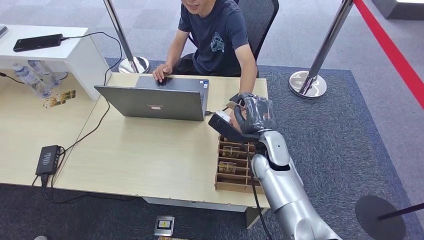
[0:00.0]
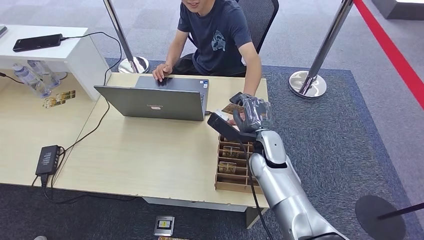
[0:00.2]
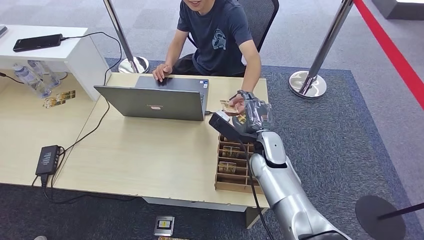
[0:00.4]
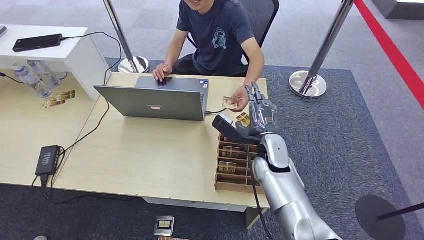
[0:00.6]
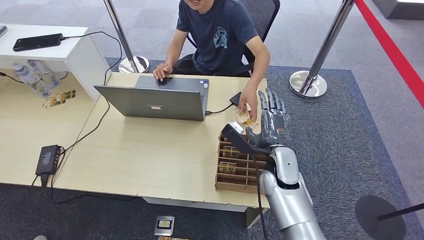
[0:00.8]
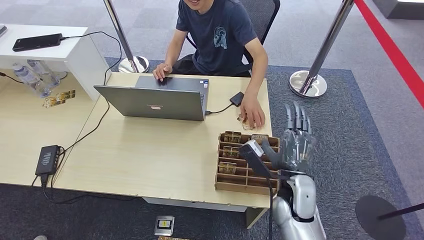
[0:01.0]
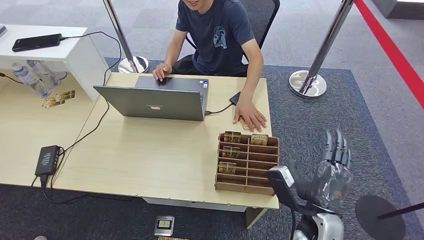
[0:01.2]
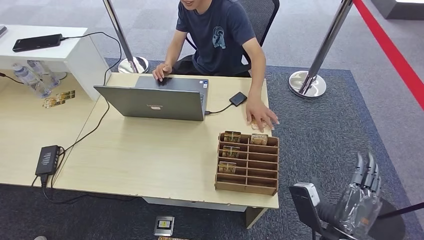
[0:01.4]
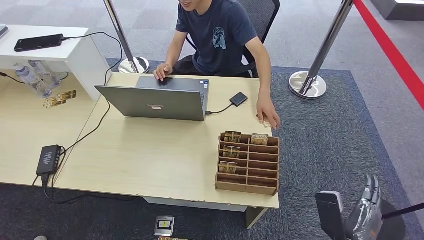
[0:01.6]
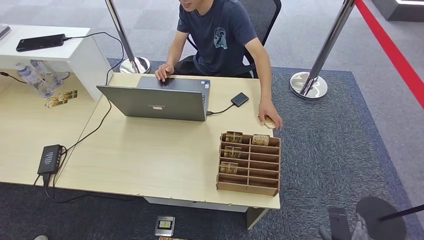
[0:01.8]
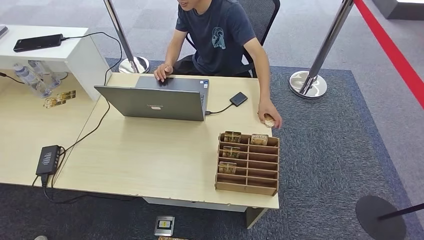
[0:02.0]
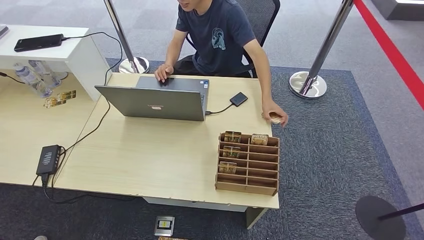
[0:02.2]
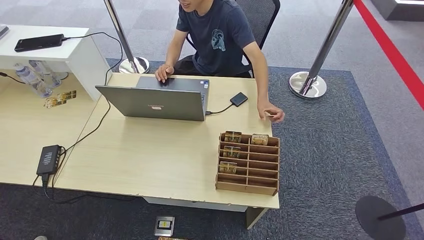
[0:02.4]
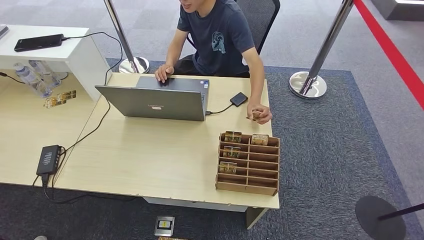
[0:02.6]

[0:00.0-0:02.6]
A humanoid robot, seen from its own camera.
Step, 0:00.0 to 0:02.6: Hand the key card to the target.
0:00.0 to 0:01.2: The right hand heads backward and to the right, covering roughly 20 cm.
0:01.2 to 0:02.6: The right hand is displaced downward and backward by about 30 cm.
